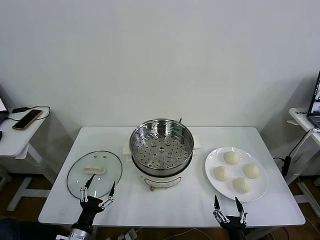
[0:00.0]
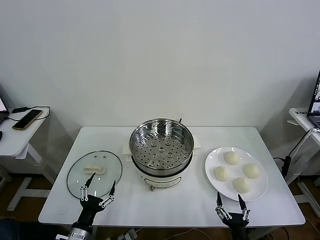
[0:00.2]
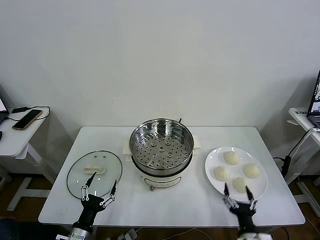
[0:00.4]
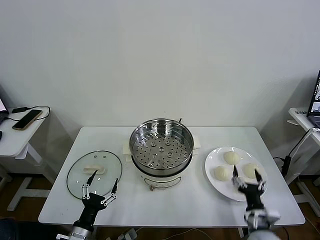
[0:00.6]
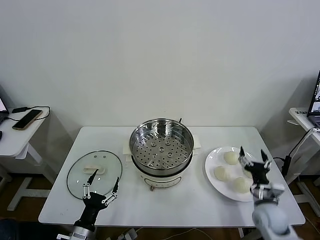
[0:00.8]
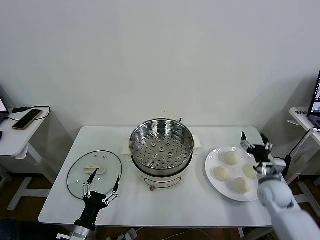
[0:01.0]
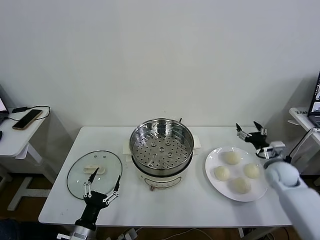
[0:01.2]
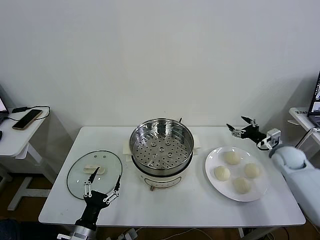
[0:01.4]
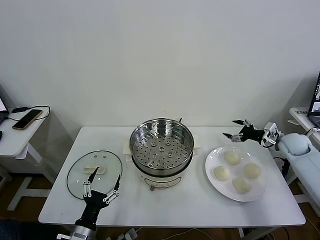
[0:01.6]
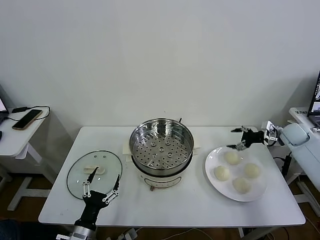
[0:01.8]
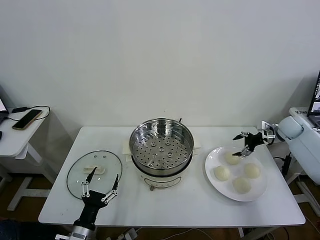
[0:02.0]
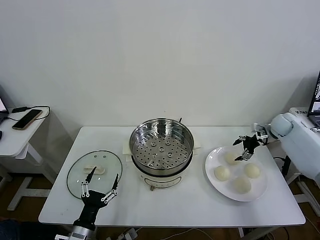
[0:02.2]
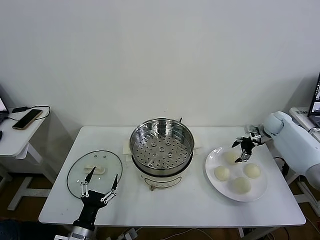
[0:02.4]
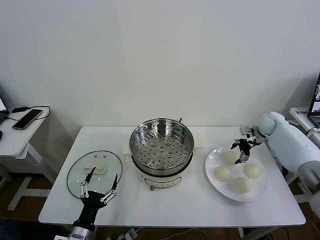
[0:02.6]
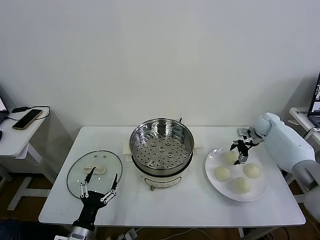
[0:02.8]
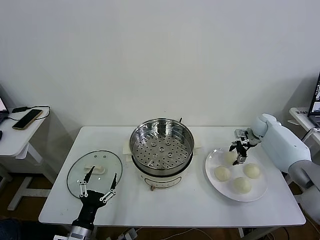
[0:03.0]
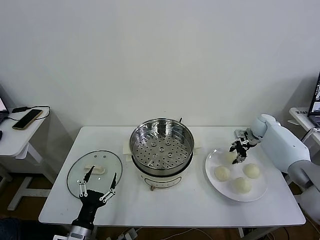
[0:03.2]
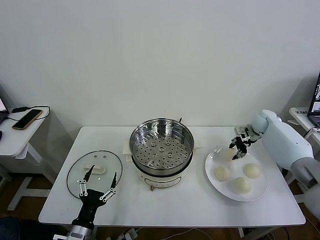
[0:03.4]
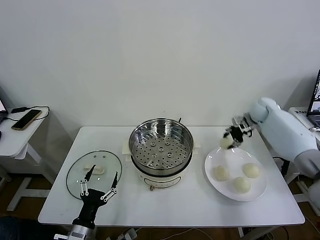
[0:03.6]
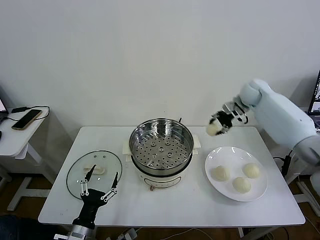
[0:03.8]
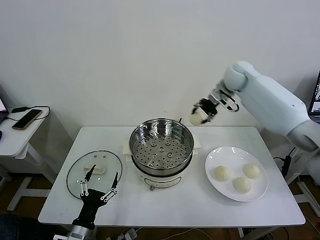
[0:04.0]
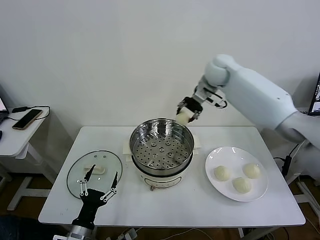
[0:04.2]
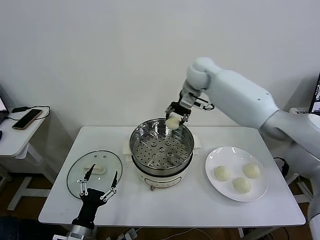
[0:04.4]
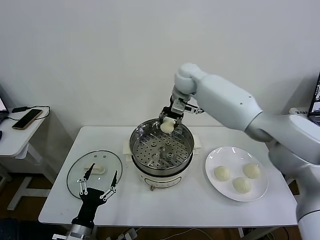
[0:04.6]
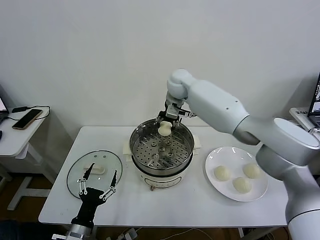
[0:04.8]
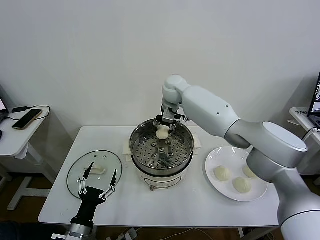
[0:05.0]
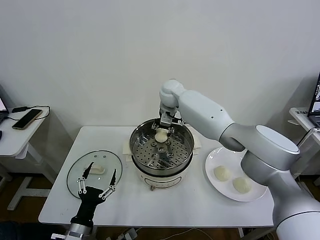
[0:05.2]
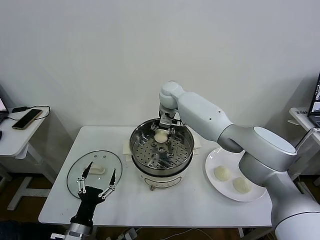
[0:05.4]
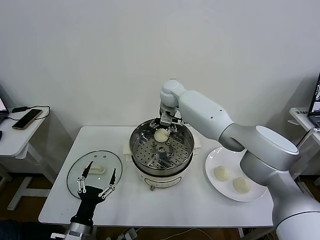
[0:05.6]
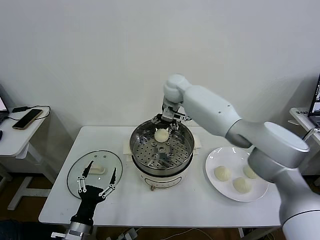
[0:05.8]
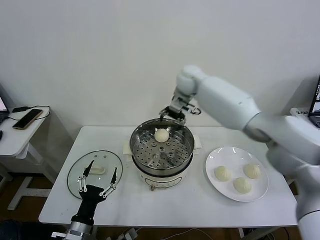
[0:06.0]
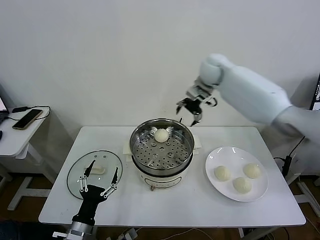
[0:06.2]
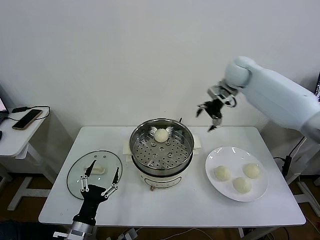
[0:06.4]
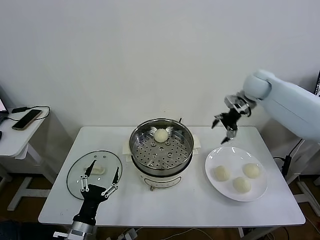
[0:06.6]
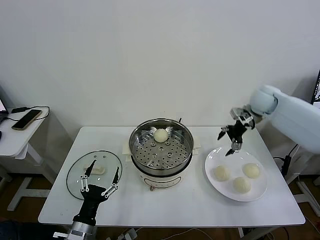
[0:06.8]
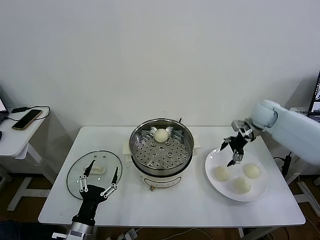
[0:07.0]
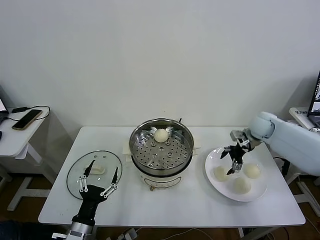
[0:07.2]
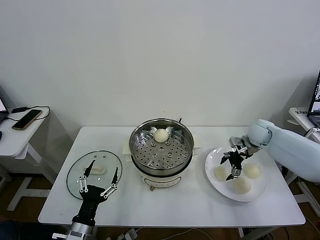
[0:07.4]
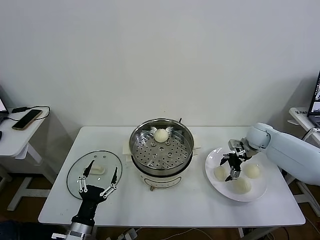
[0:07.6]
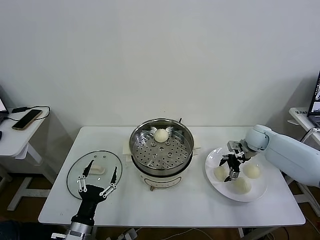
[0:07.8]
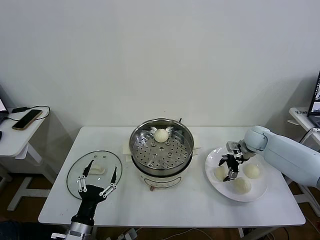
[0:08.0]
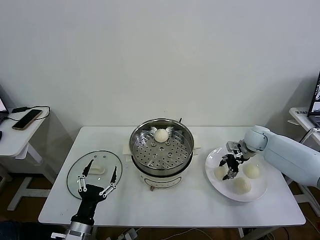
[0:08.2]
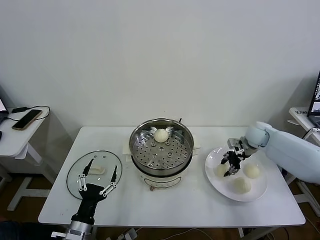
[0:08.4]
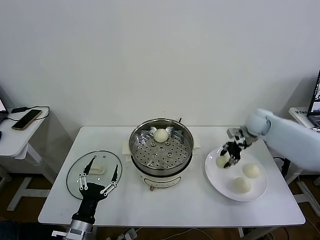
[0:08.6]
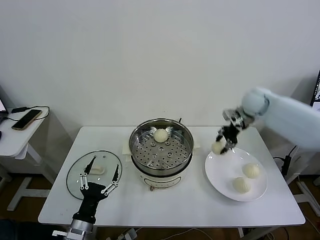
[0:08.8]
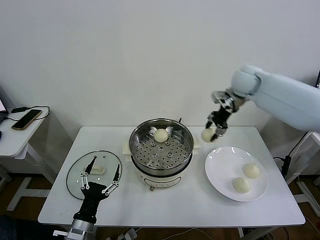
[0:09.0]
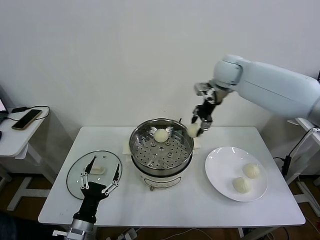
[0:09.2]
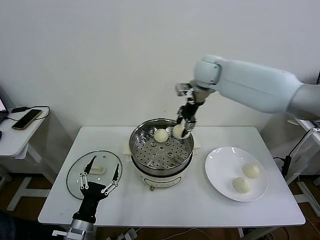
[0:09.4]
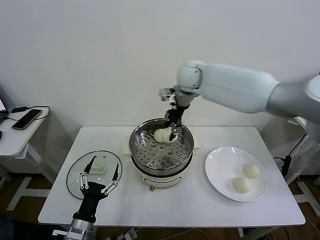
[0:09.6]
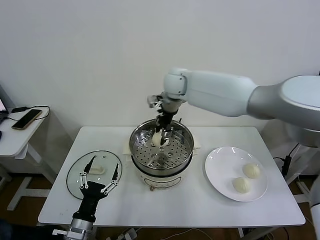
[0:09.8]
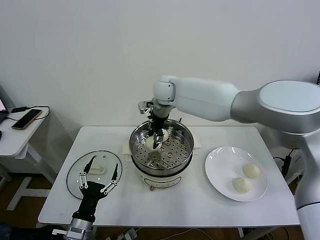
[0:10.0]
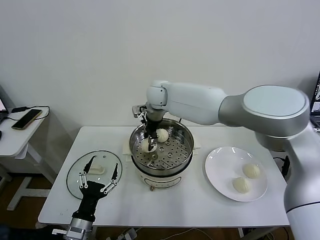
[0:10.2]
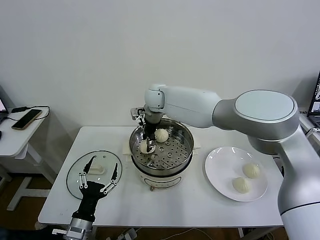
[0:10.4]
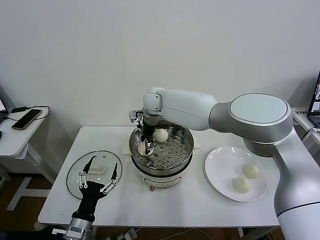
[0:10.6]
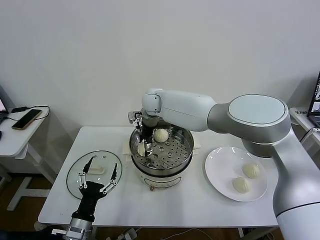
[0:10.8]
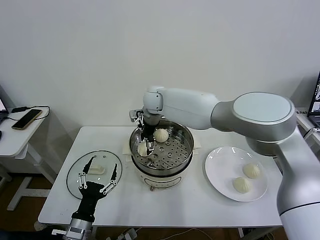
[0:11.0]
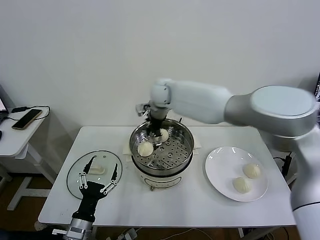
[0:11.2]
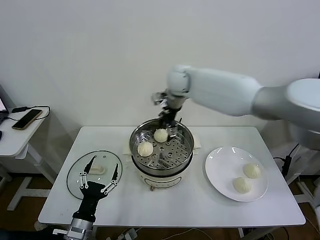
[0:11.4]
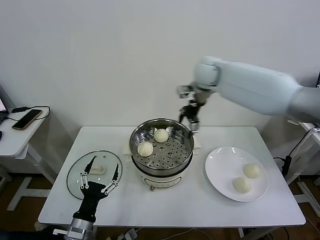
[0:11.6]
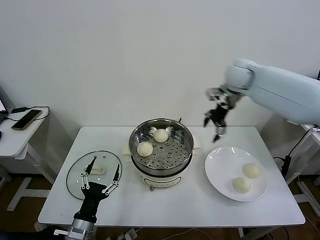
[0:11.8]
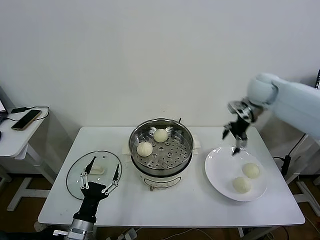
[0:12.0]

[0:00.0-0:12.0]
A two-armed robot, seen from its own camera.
Task of the whole recording: take steamed baozi put them in steamer then cover it.
Step, 0.0 to 3.2 s: Grasp the baozi in the plate with right gripper.
Step, 3.4 to 5.4 s: Place the baozi on the steamer with right gripper.
Step, 5.6 to 8.2 s: Grasp the baozi in the plate with right gripper.
Step, 8.4 to 10.8 s: Place the baozi on the steamer with right gripper.
1.6 to 3.0 s: The right gripper goes approximately 10 cm forward and to the left, and closes up.
3.0 to 4.4 s: The right gripper goes roughly 40 cm to the left and upward.
4.4 to 6.0 s: The right gripper reaches about 5 cm to the left, then returns, and opens.
6.0 to 7.6 s: The right gripper moves to the right and downward, roughly 35 cm.
7.6 to 9.0 s: The right gripper heads upward and to the left, covering approximately 25 cm, and closes.
9.0 to 10.4 s: The right gripper goes about 25 cm to the left.
10.4 to 12.0 s: The right gripper moves to the right, about 35 cm, and opens up.

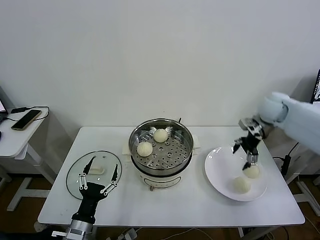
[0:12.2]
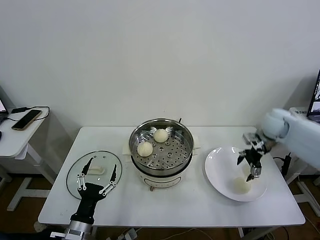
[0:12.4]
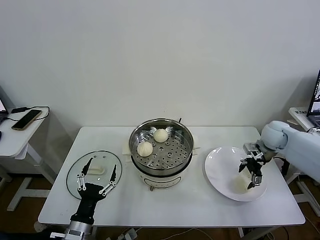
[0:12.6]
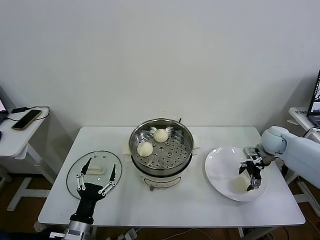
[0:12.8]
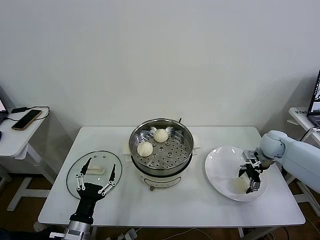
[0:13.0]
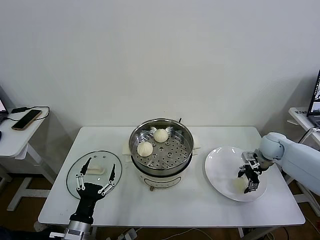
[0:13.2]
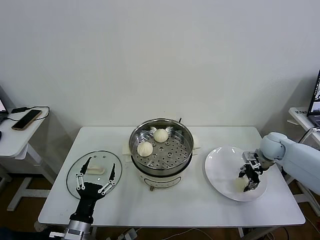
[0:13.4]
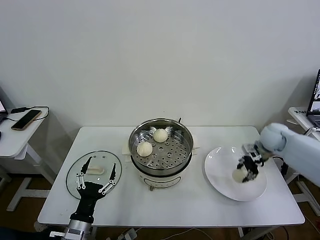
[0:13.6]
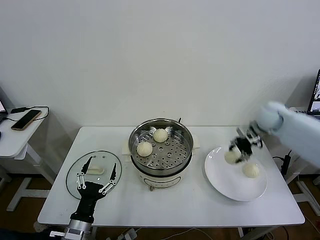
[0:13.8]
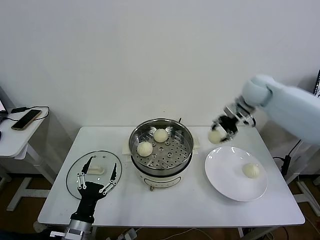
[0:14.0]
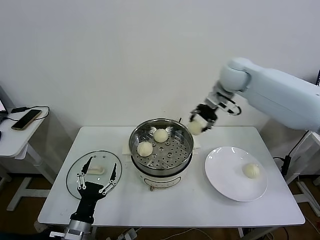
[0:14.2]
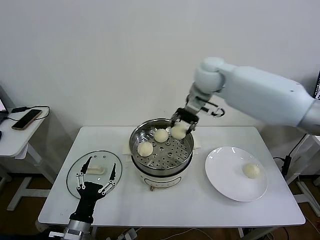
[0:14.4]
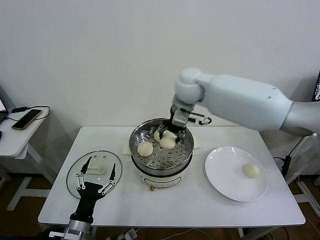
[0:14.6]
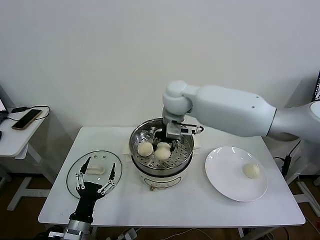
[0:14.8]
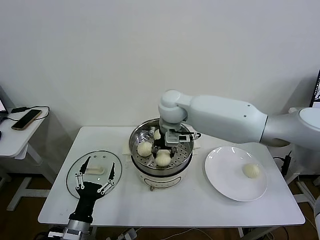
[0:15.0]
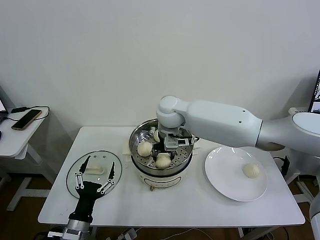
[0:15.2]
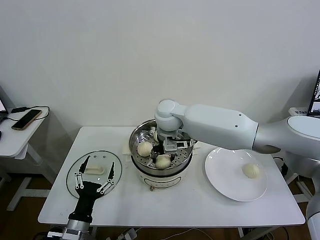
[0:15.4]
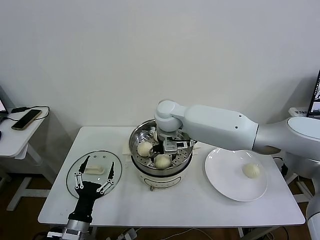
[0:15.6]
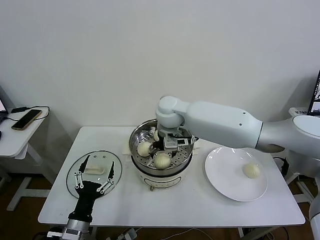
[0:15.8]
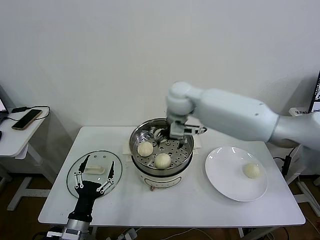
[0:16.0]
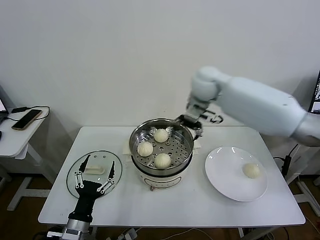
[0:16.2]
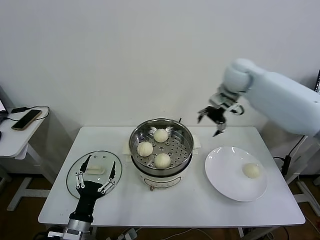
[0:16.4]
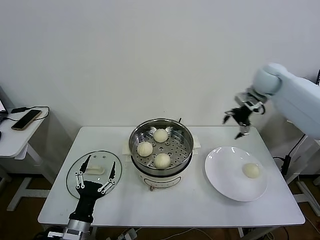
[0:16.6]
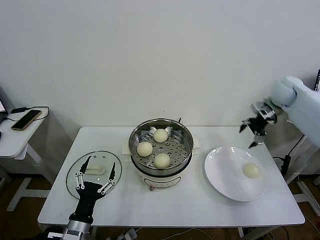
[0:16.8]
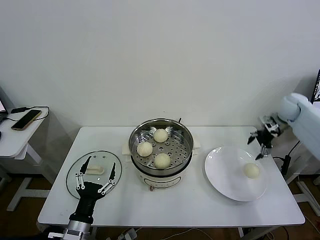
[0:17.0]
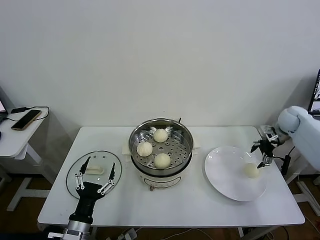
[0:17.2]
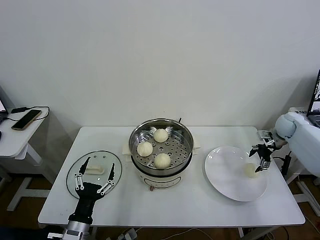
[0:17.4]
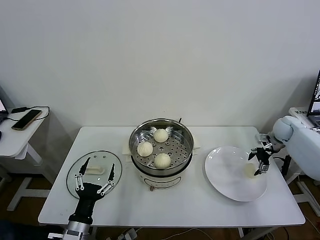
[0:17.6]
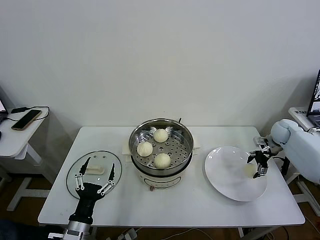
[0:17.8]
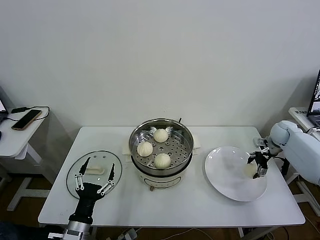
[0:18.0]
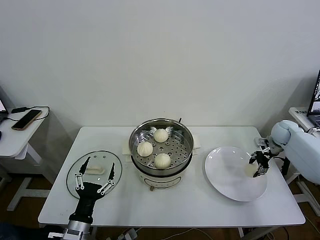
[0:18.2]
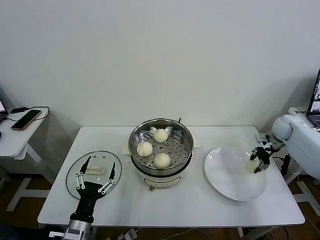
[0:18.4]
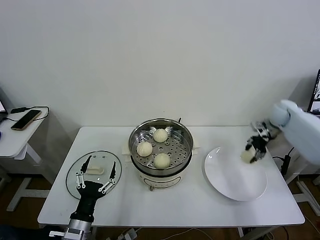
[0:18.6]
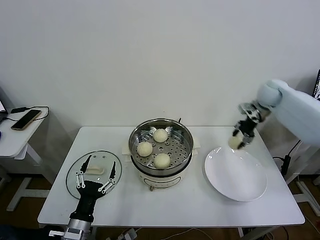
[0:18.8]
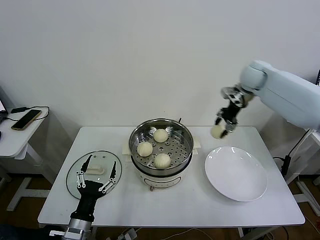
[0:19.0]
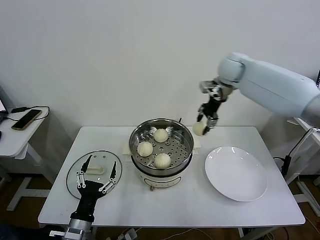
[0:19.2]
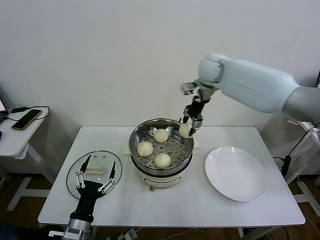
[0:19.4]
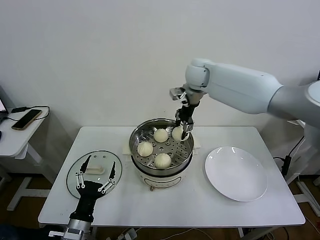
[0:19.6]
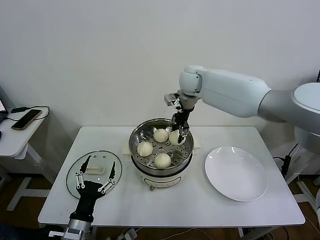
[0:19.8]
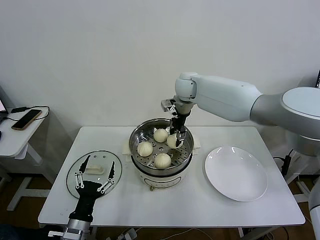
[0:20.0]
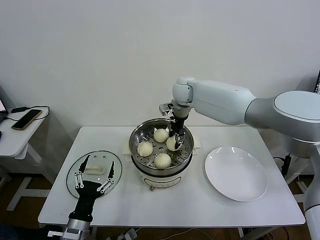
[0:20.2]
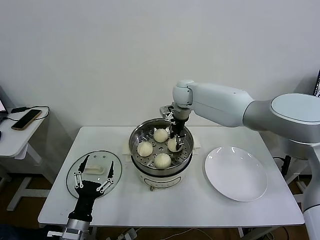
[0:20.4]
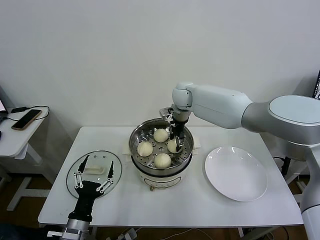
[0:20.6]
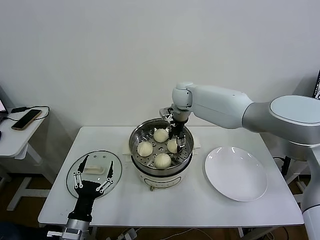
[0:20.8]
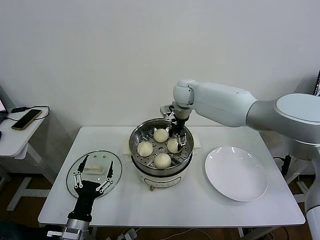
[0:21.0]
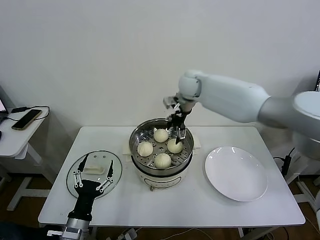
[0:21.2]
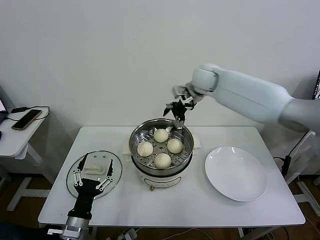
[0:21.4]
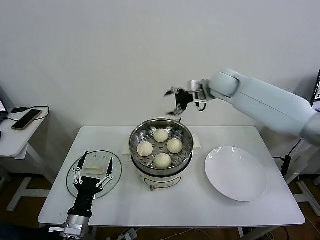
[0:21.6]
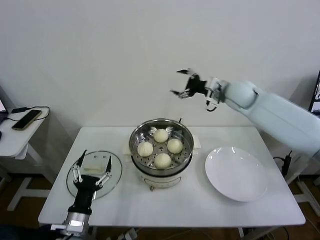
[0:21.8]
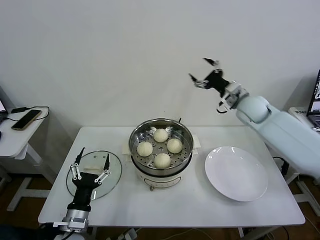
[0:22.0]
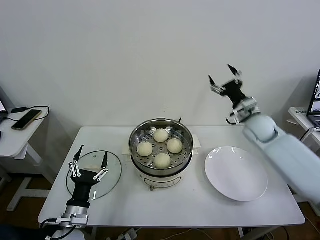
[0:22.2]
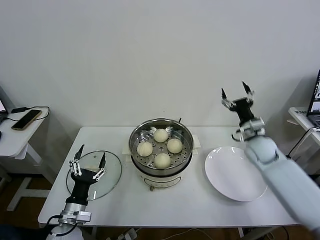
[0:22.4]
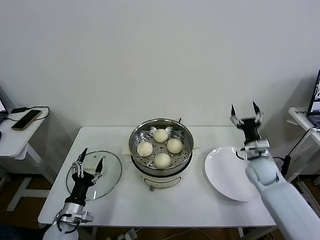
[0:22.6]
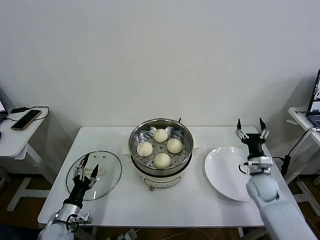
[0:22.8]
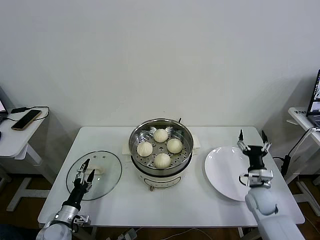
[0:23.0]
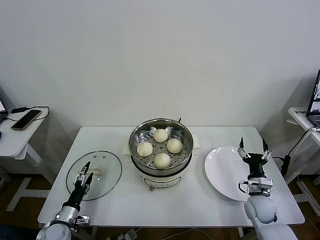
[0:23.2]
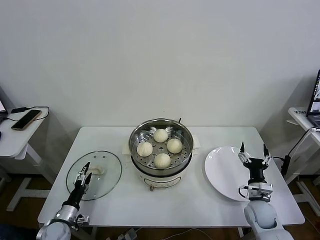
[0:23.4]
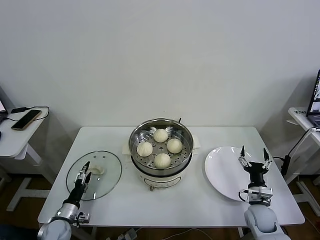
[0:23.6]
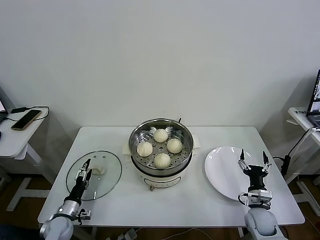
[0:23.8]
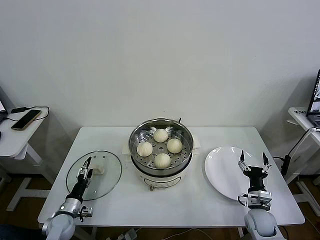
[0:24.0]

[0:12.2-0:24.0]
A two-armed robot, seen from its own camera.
Task of the whole recording: take steamed baozi put them in steamer then cover it.
Step, 13.6 to 15.4 s: Place the baozi on the steamer with right gripper.
Step, 15.6 to 18.2 s: Grasp the baozi in the plate with right gripper.
Step, 18.4 to 20.8 s: Place the baozi on the steamer with right gripper.
12.2 to 13.6 s: The right gripper travels downward by some 10 cm, and closes.
13.6 to 15.2 s: The right gripper moves to the left, approximately 40 cm.
15.2 to 16.6 s: The right gripper travels to the right by about 35 cm, and opens up.
16.6 to 18.2 s: The right gripper moves downward and to the right, some 25 cm, and closes its fingers.
18.2 to 19.6 s: The right gripper travels to the left and upward by approximately 40 cm.
19.6 to 21.0 s: The right gripper heads downward, covering approximately 5 cm, and opens.
21.0 to 22.6 s: The left gripper goes approximately 10 cm forward and to the left; the right gripper heads to the right, downward and backward, covering about 40 cm.
22.6 to 24.0 s: The right gripper is displaced backward and downward by some 20 cm. The left gripper goes roughly 10 cm downward, to the left and forward.
